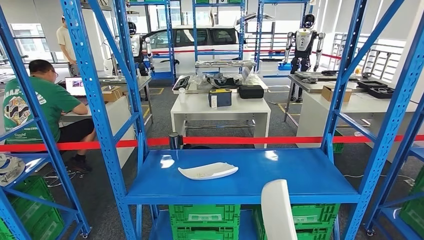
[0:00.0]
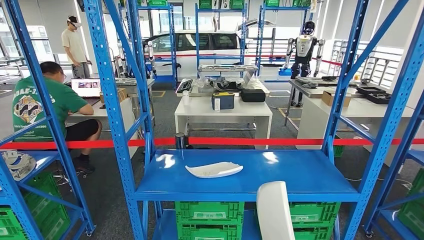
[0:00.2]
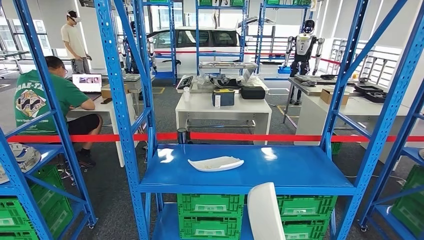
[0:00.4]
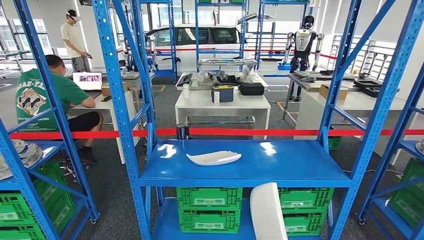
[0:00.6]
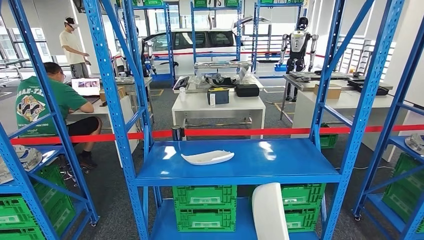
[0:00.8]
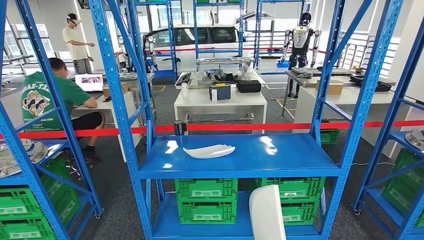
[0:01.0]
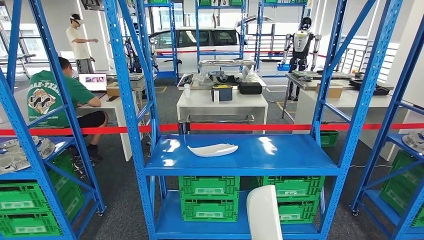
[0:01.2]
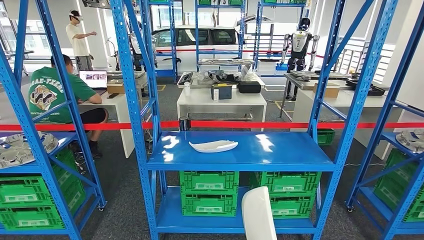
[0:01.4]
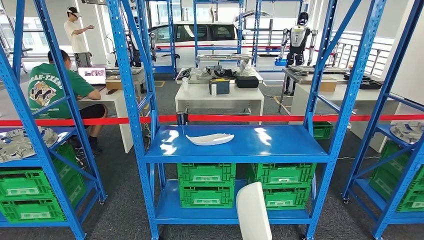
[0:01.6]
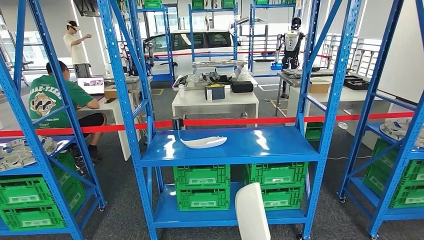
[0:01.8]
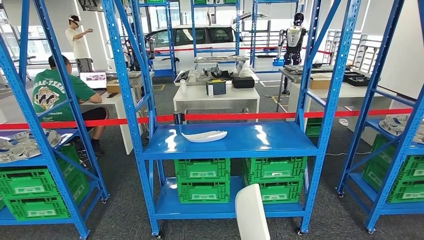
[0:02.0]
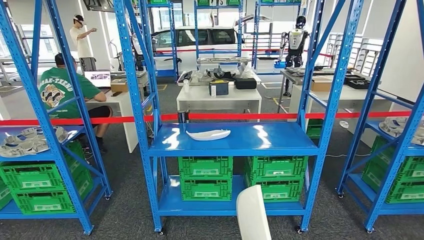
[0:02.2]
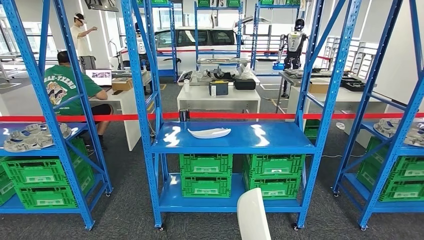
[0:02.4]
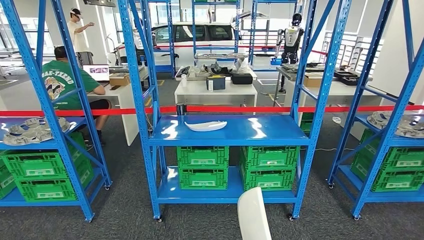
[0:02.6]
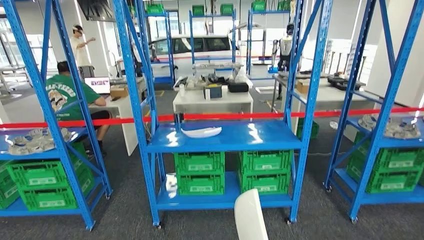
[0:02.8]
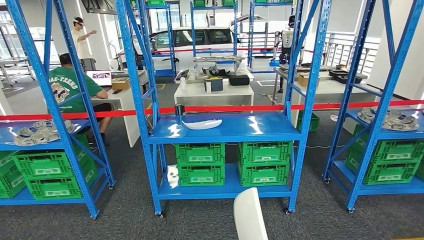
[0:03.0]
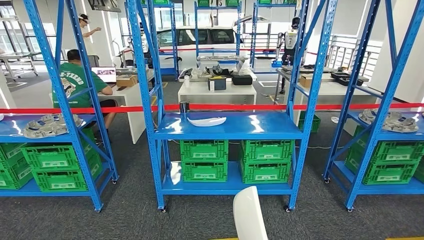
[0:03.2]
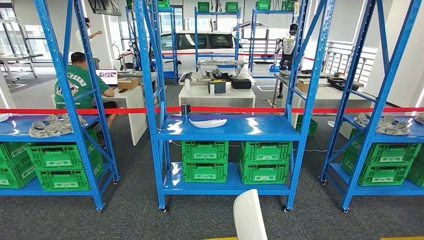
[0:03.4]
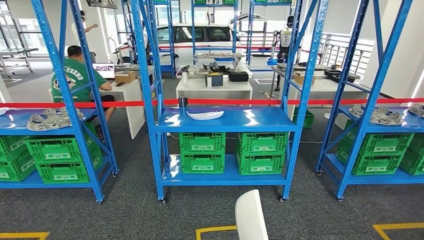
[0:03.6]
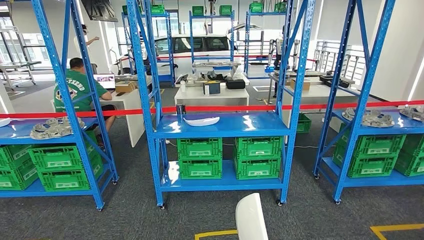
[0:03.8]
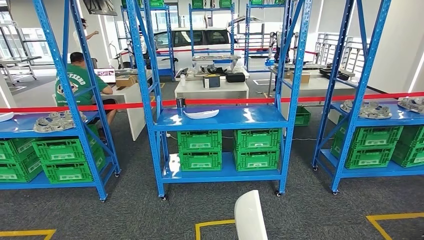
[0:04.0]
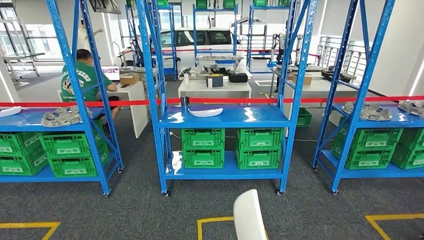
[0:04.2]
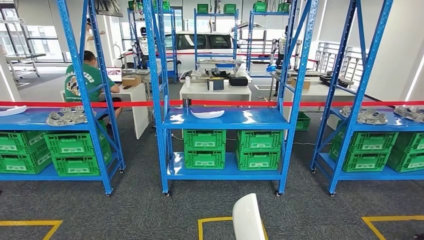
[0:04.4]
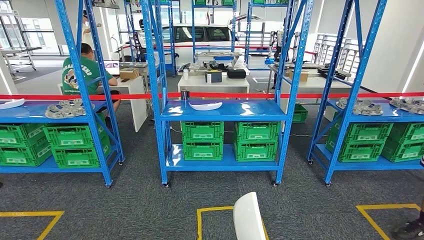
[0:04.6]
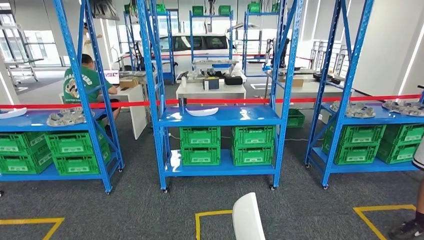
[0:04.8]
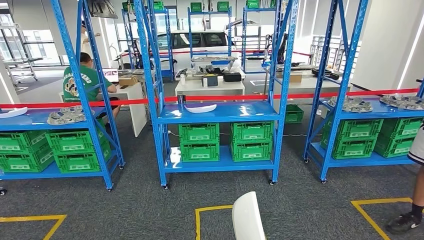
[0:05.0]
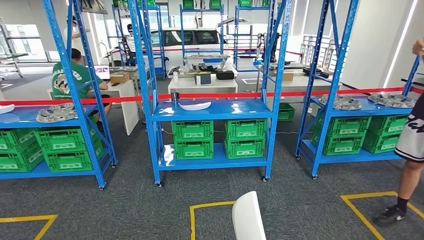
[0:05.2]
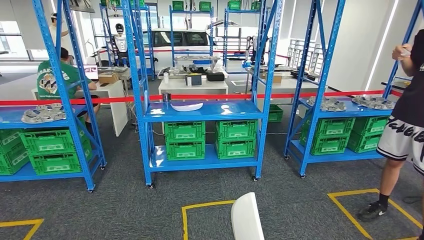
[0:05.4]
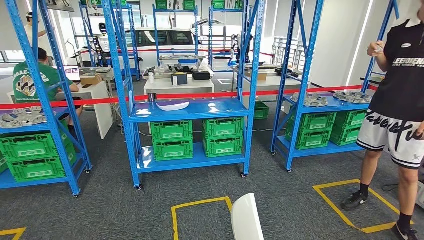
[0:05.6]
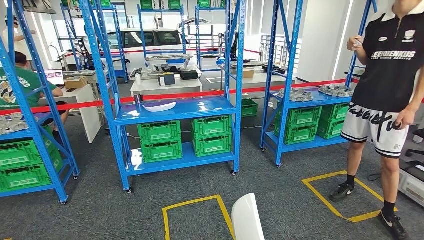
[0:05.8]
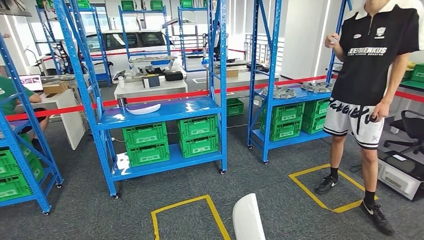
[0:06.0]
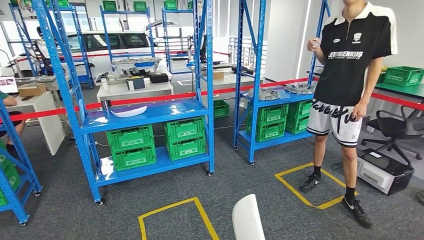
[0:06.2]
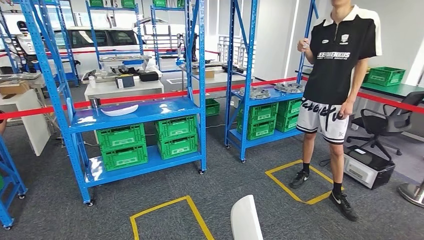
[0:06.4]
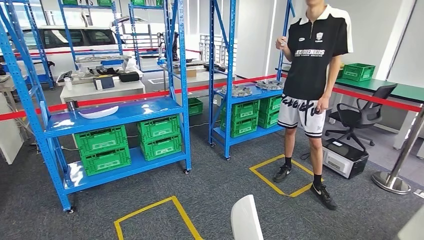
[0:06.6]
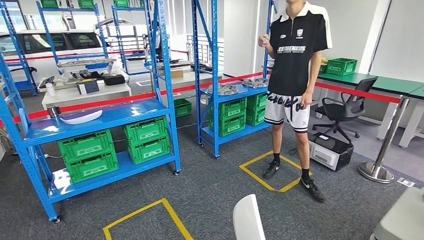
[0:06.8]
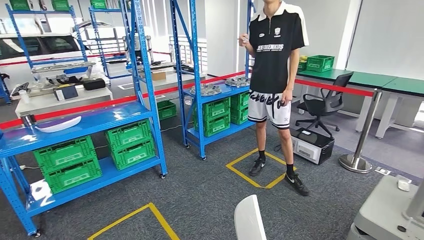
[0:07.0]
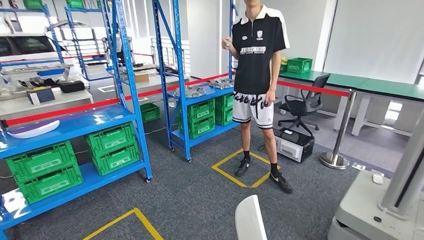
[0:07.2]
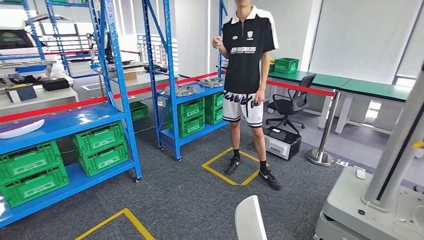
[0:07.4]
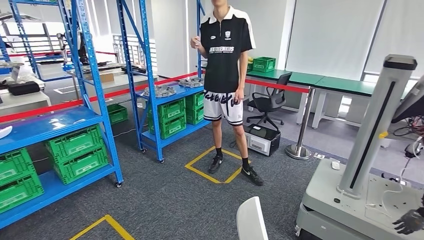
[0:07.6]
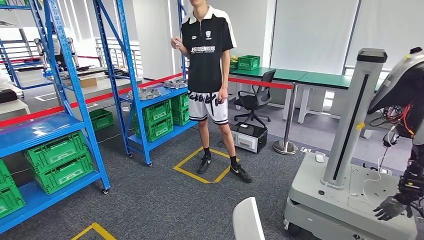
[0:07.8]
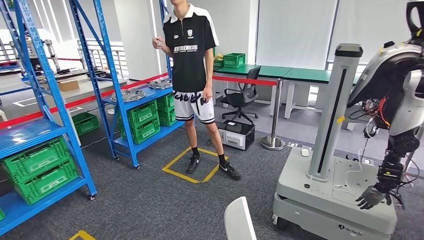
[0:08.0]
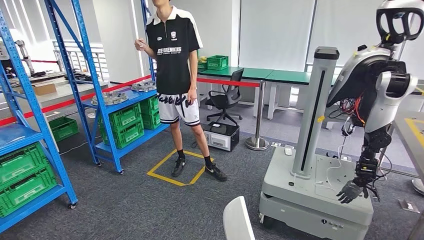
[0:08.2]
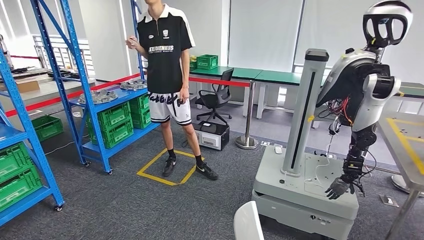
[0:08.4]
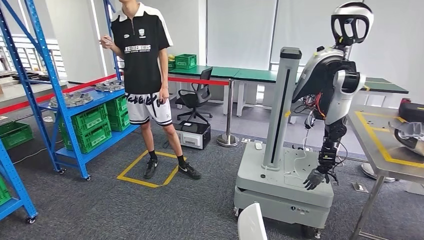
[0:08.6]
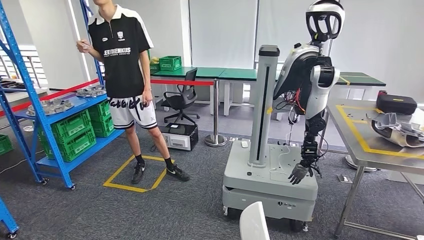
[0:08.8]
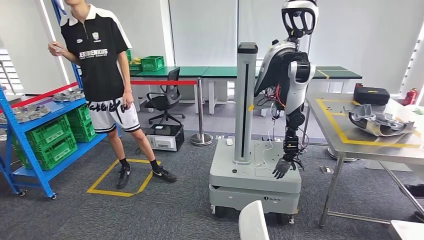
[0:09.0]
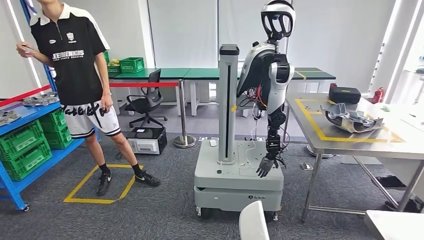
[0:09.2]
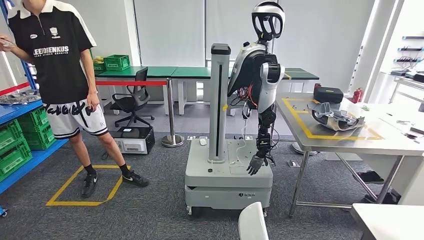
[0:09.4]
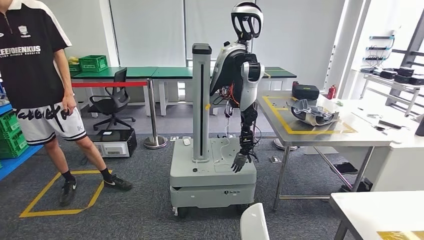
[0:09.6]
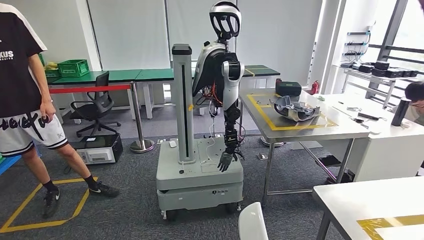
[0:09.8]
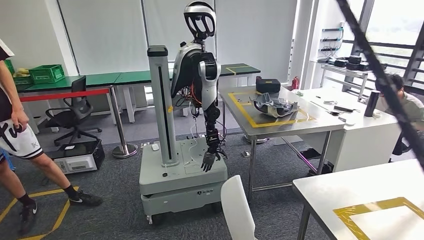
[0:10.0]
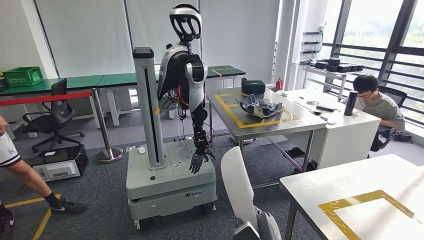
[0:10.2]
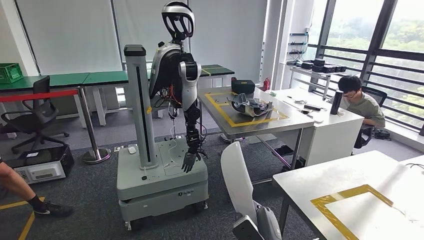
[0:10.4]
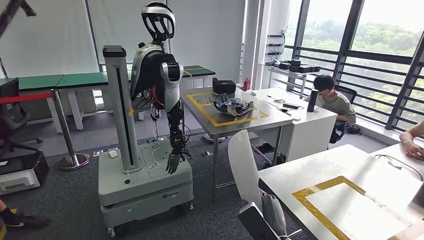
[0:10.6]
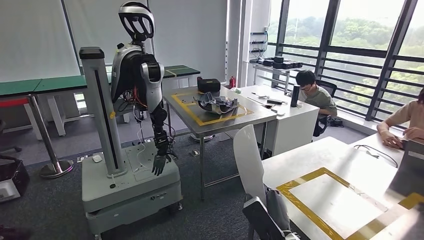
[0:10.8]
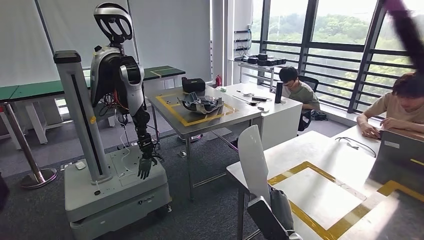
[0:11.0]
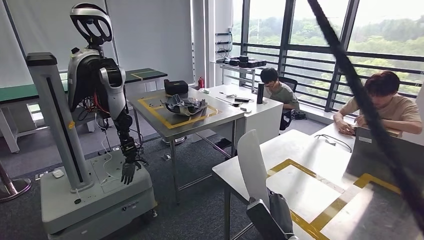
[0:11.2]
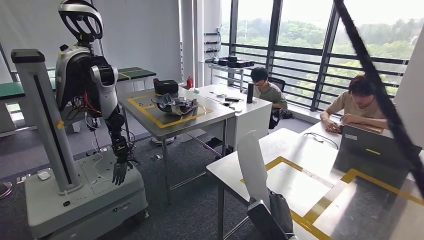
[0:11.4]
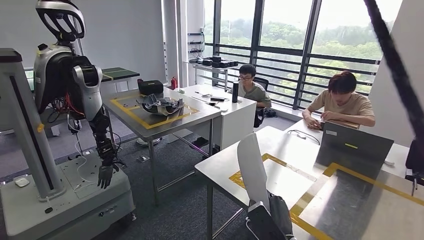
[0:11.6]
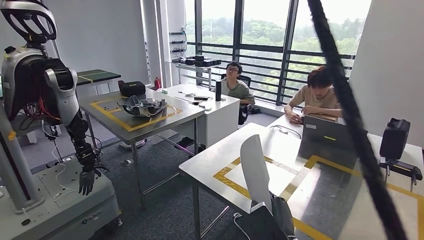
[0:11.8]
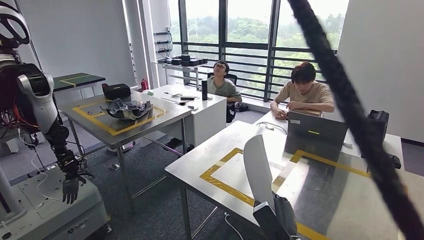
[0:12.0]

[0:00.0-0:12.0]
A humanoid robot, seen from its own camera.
Step, 0:00.0 to 0:10.0: Move the small parts to the workbench.

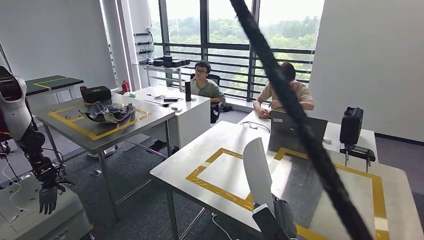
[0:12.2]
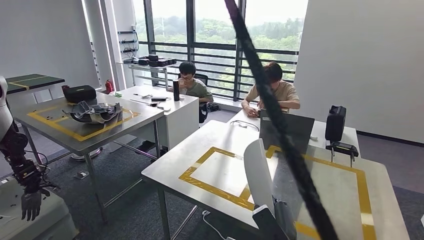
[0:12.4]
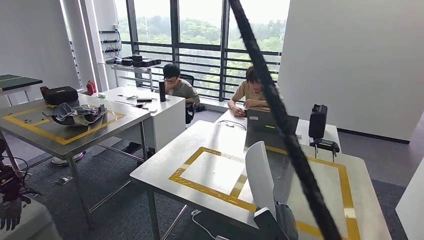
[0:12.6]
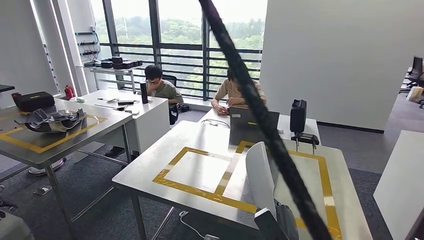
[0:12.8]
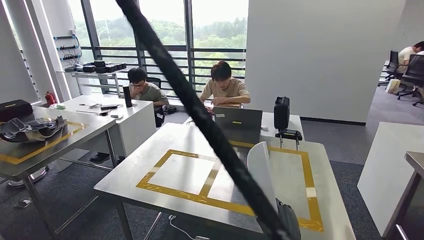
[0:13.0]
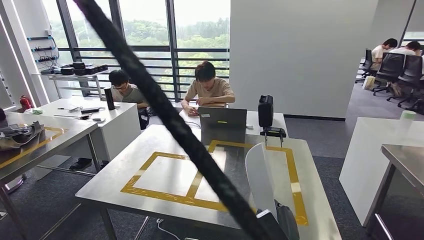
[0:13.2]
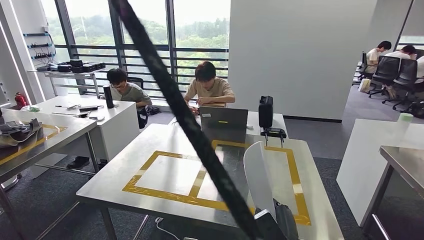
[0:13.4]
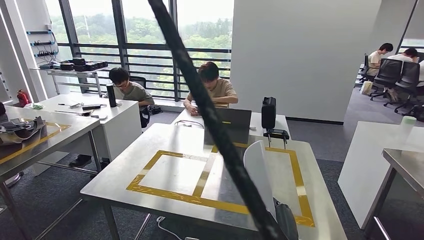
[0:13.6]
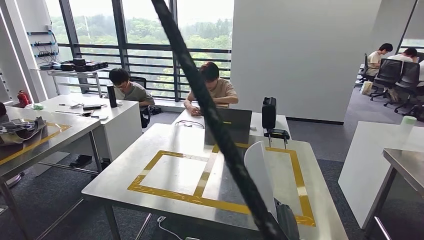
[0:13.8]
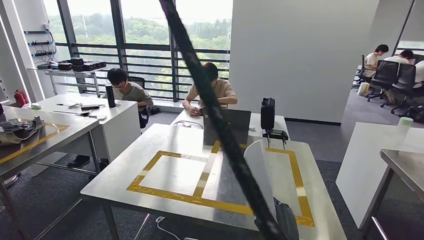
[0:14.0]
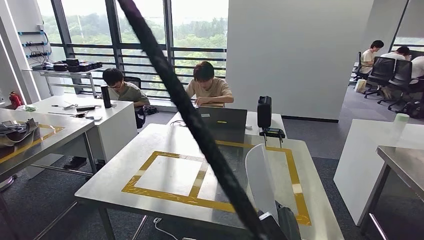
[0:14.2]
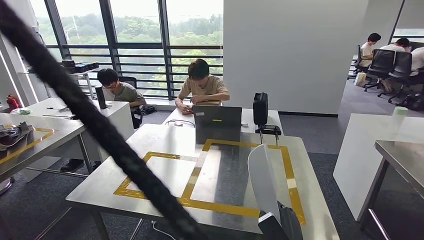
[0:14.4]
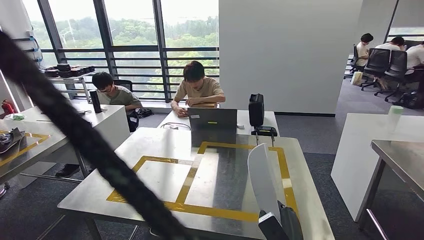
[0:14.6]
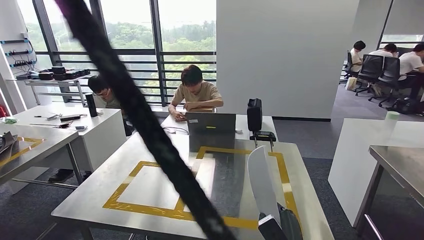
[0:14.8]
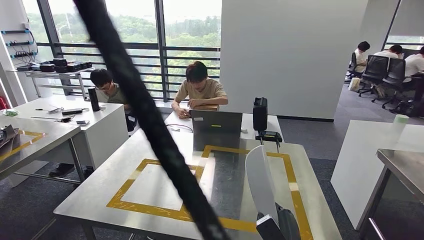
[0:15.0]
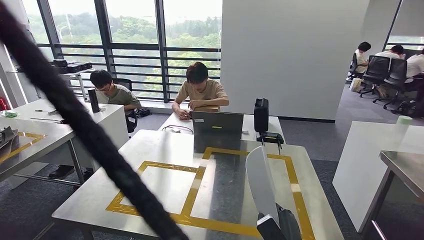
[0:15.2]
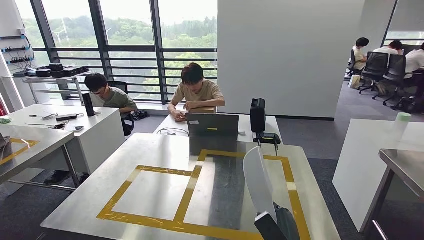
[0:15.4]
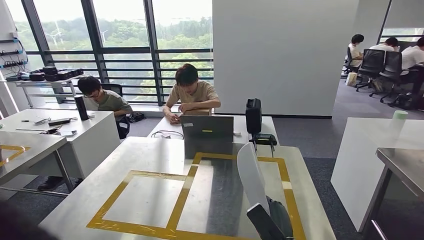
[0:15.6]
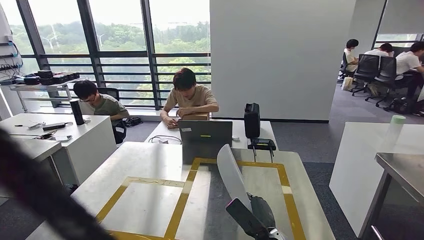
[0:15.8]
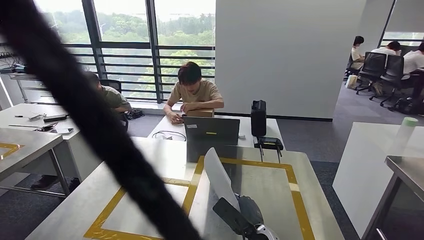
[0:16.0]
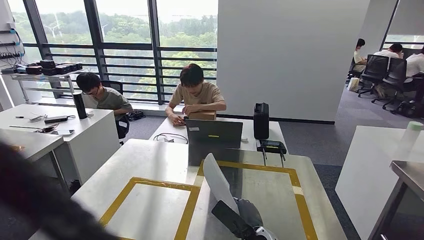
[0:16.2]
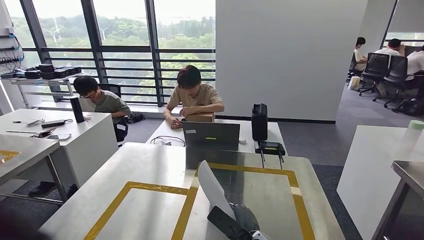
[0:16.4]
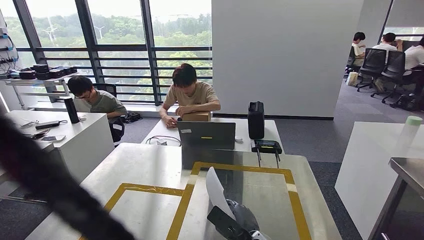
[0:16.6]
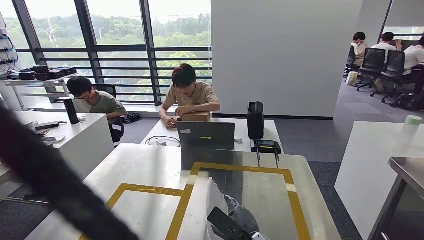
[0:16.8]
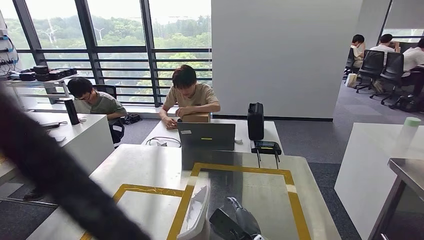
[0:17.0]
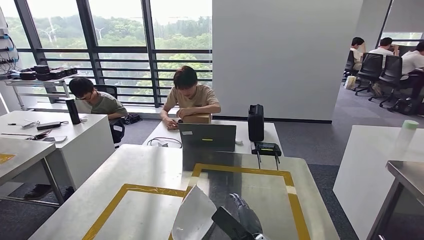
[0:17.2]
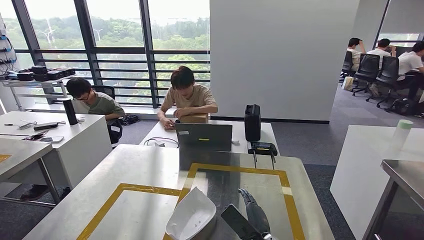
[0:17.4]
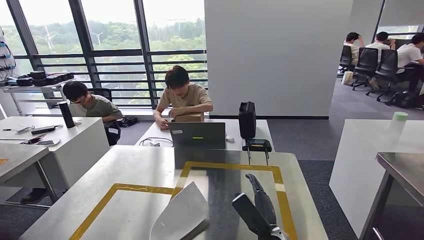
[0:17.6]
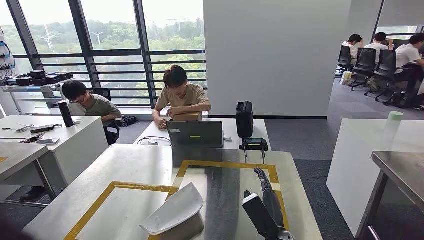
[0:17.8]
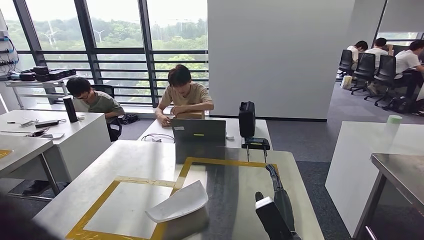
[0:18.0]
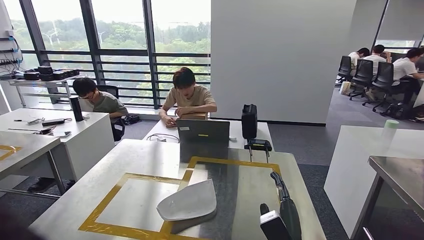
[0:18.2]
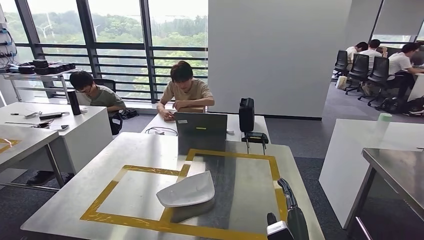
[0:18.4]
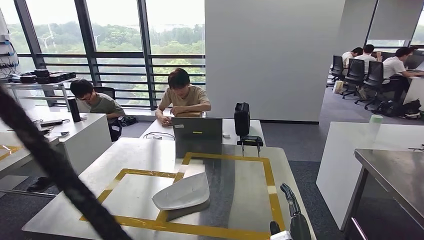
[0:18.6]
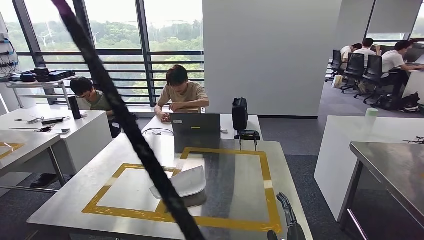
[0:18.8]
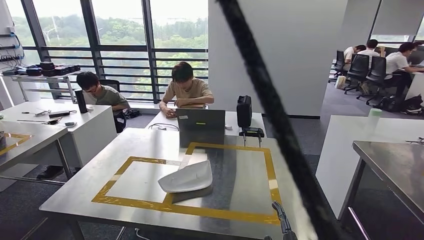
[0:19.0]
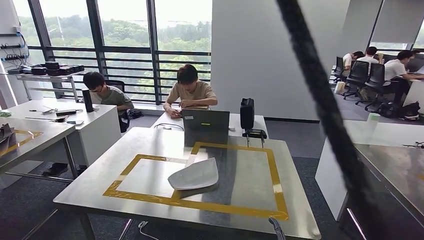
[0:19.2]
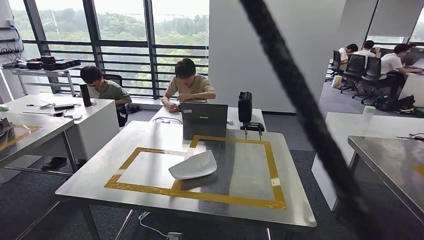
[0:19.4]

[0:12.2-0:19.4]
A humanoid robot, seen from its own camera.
Step, 0:12.2 to 0:19.2: Insert the small parts into the corresponding slots on the workbench.
